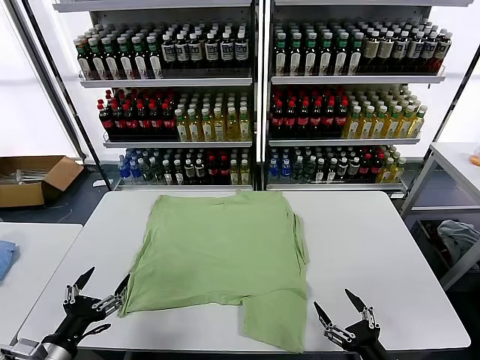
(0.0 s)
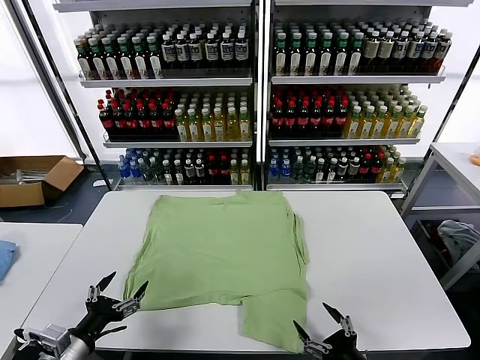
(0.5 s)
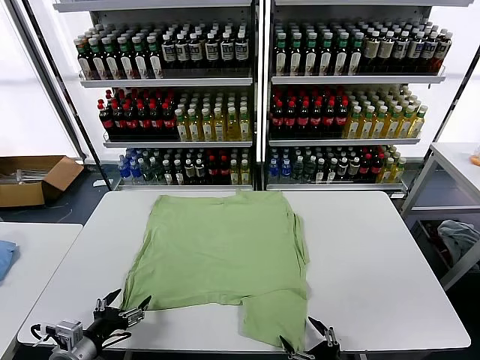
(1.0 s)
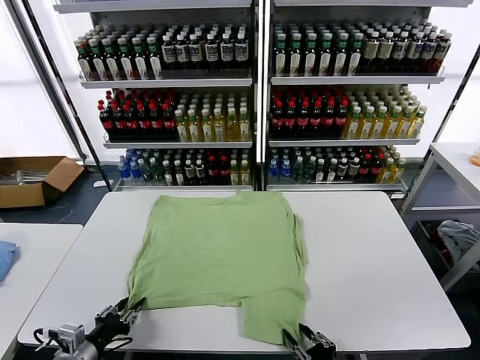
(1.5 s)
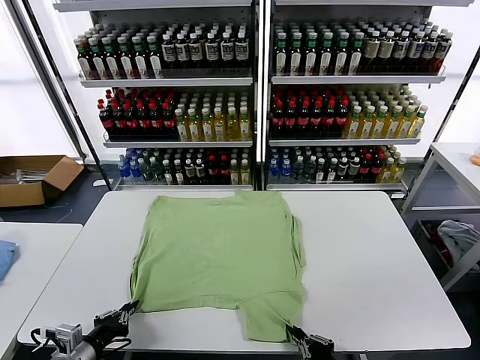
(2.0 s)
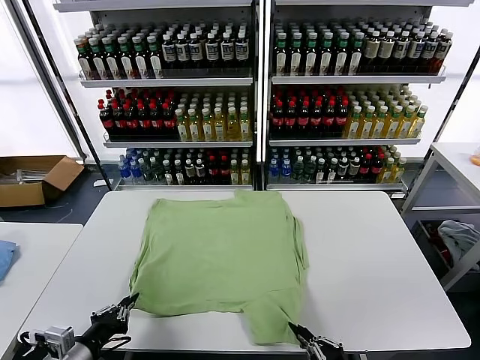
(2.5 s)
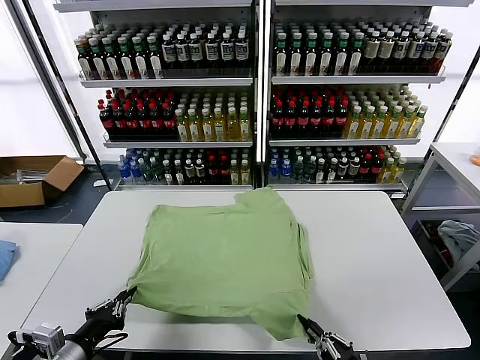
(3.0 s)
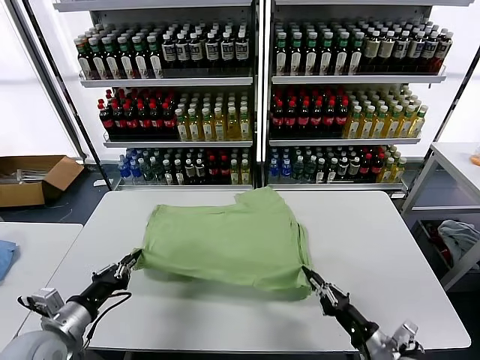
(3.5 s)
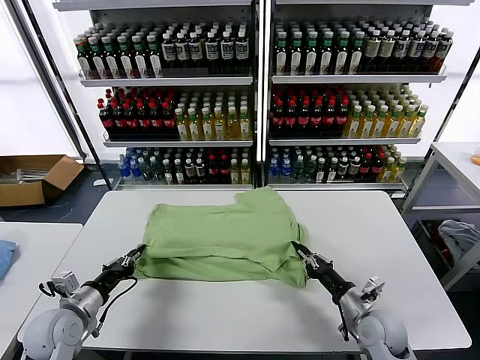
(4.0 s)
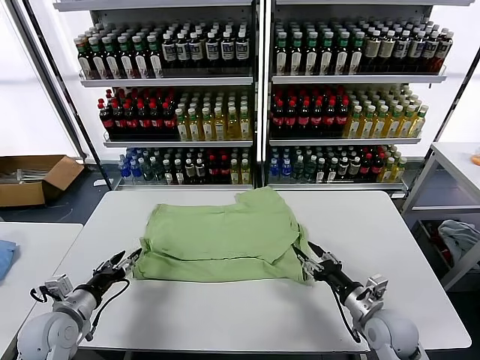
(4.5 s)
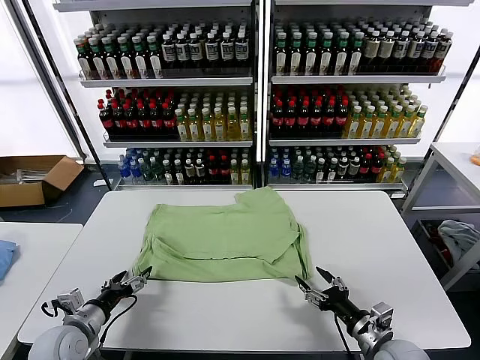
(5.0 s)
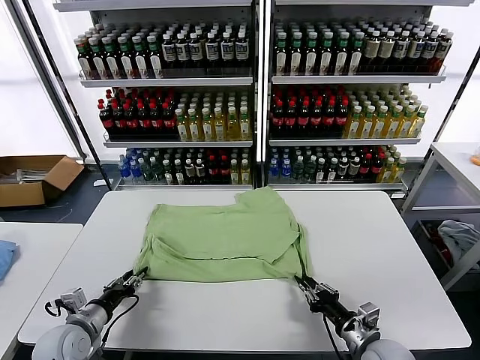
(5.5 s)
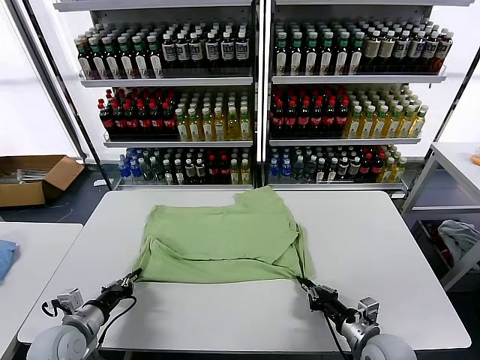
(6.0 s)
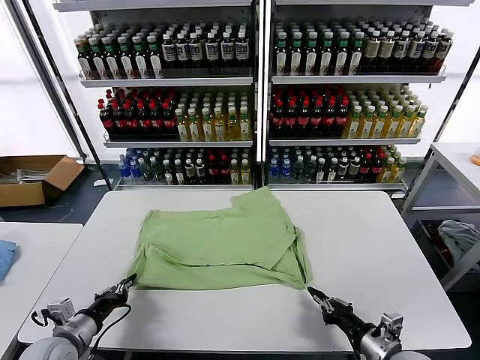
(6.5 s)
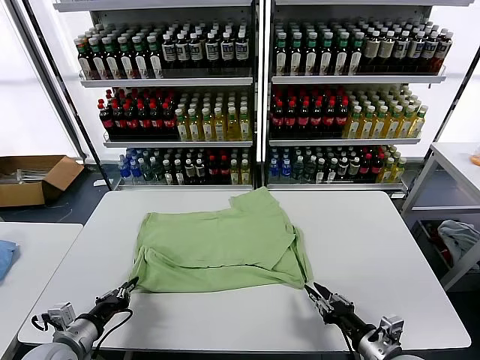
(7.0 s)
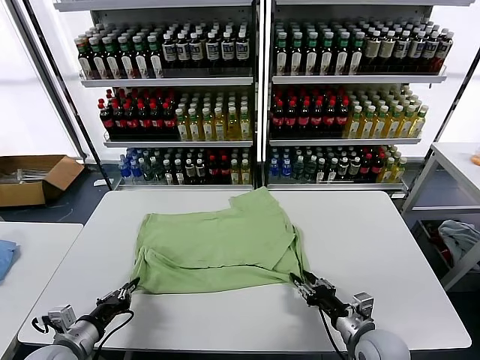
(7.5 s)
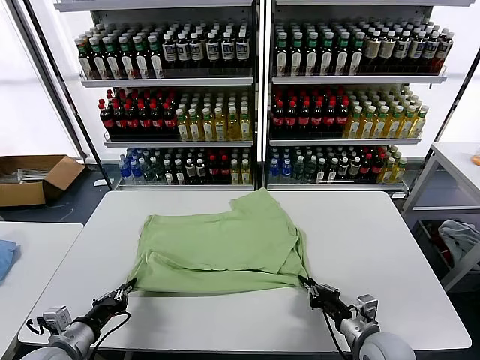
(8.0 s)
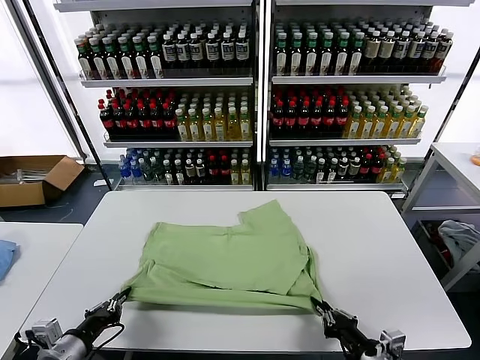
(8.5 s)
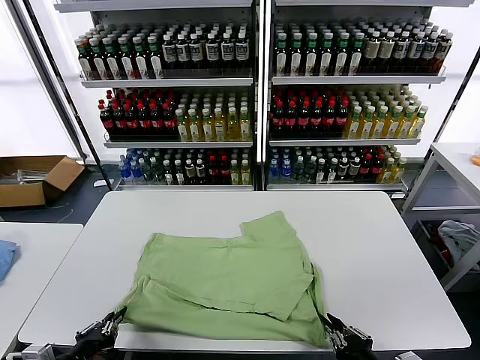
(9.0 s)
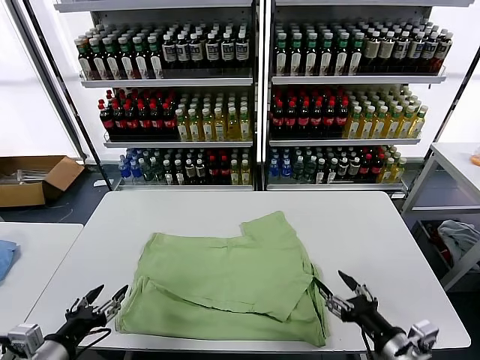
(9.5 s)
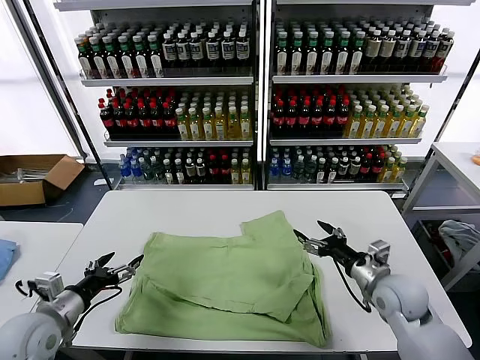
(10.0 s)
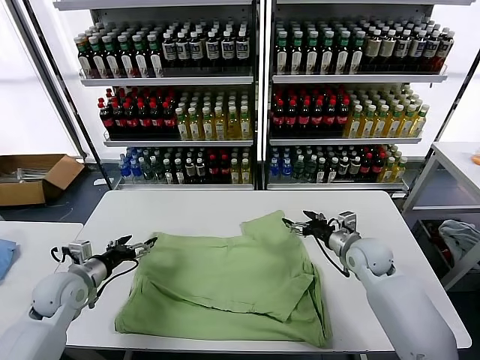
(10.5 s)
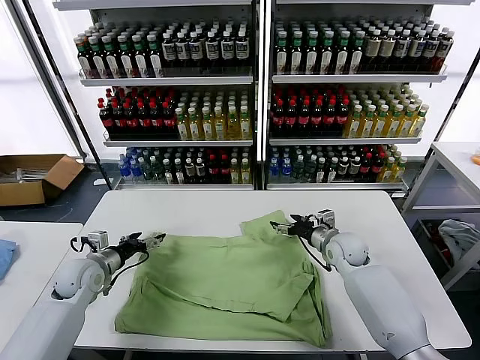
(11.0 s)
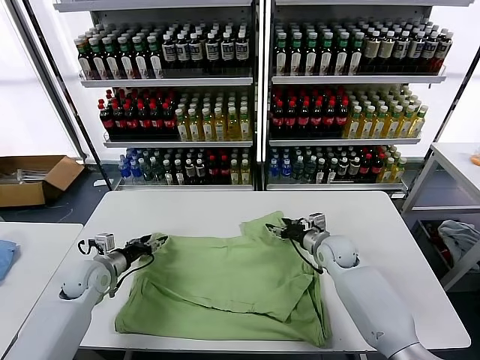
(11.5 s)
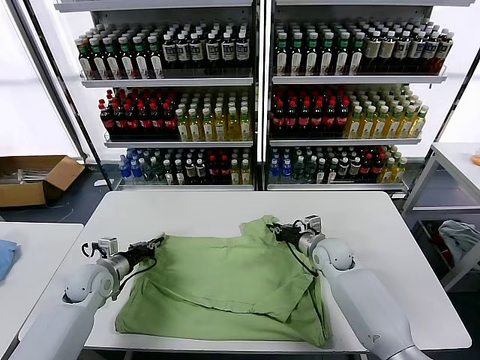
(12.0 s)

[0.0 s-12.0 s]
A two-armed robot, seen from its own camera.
Task of the whole recording: fold and organize the clothes.
Step, 0.0 to 1.5 s: use both grippers simultaneously to clamp the lower edge of the clothing fabric.
Step, 2.0 to 4.0 s: use both grippers to drag the lower edge of the fabric forward and fold it over the upper edge.
Step, 5.0 to 9.0 s: Drag the clothes downward with both gripper.
2.0 to 4.0 s: The left gripper moves forward, roughly 10 cm; the right gripper shifts roughly 20 cm forward.
4.0 to 6.0 s: The right gripper is displaced backward by about 5 cm, and opens, then closes once more. Meanwhile the left gripper opens and closes again.
6.0 to 8.0 s: The left gripper ends up some 5 cm from where it was; the right gripper opens, then closes again.
8.0 to 10.0 s: The right gripper travels forward and upward by some 15 cm, and opens its fingers, while the left gripper moves upward, some 5 cm, goes backward and returns, roughly 10 cm each way, and opens.
10.0 to 12.0 s: The left gripper is displaced forward and downward by roughly 20 cm, and closes up, while the right gripper heads forward, to the left and downward, covering approximately 15 cm, and closes.

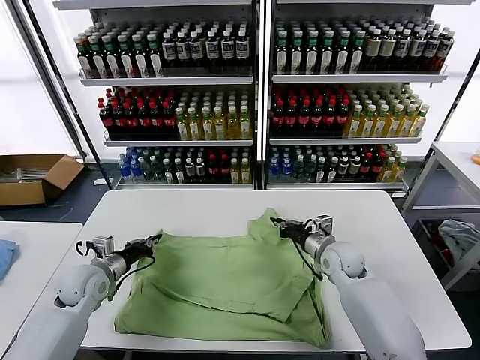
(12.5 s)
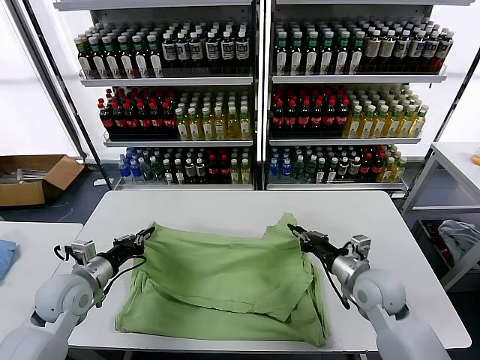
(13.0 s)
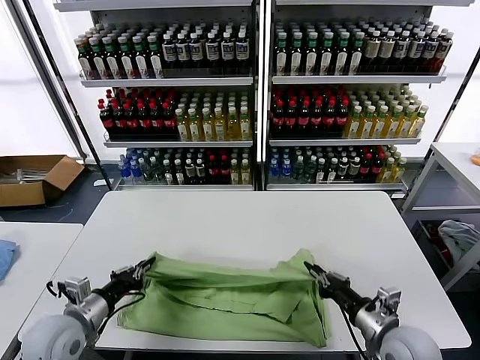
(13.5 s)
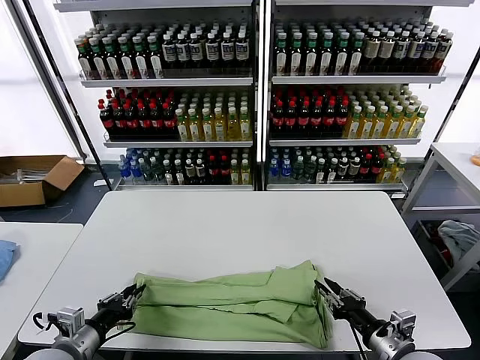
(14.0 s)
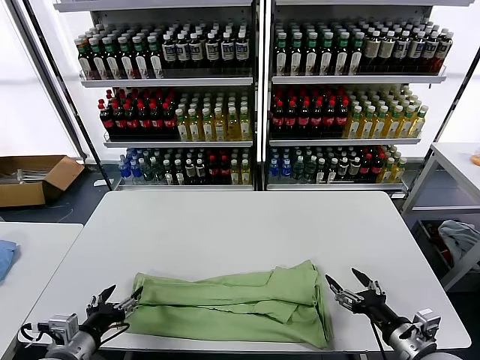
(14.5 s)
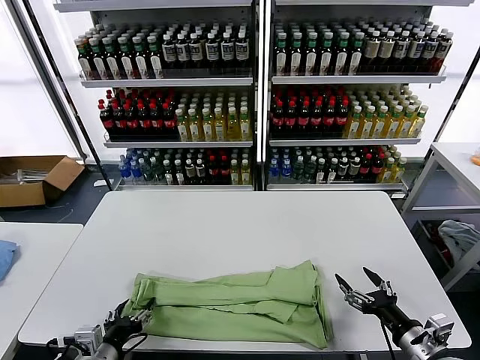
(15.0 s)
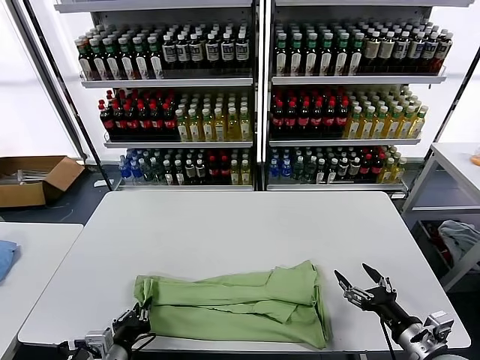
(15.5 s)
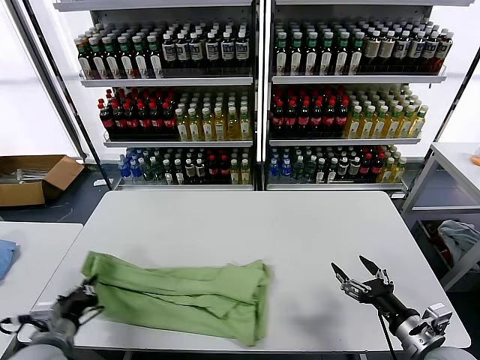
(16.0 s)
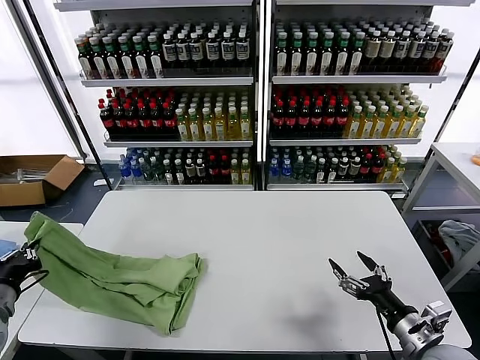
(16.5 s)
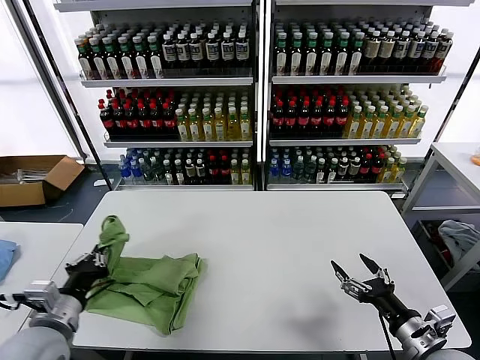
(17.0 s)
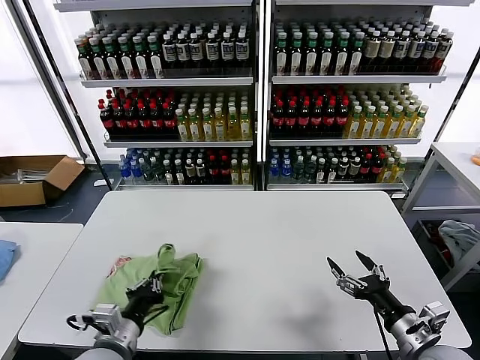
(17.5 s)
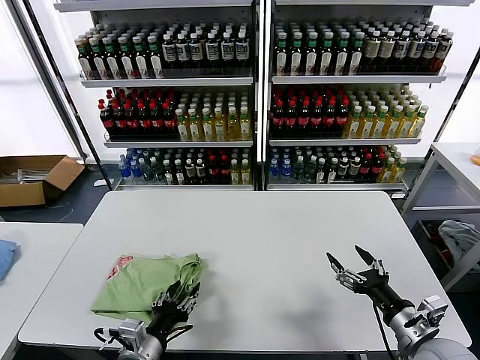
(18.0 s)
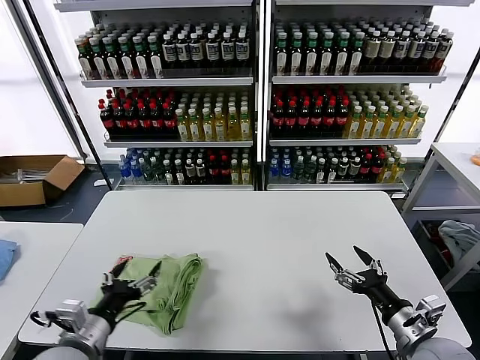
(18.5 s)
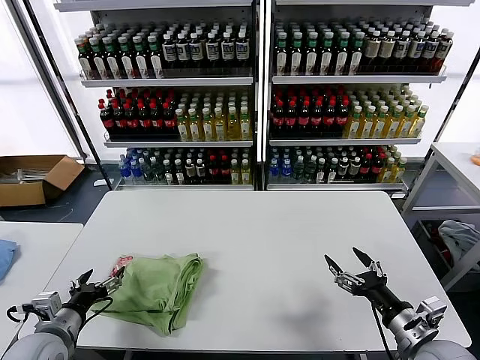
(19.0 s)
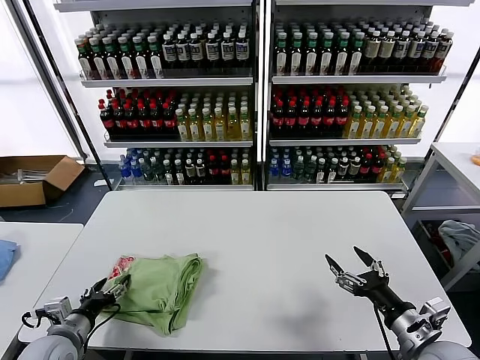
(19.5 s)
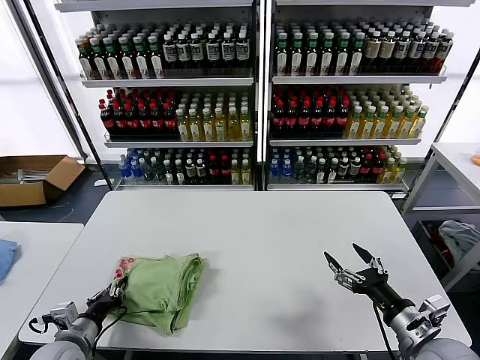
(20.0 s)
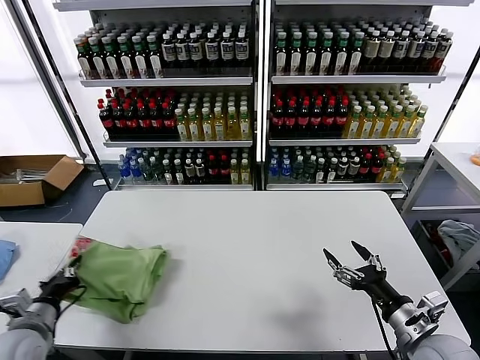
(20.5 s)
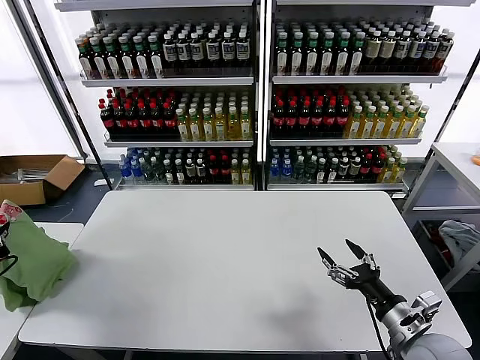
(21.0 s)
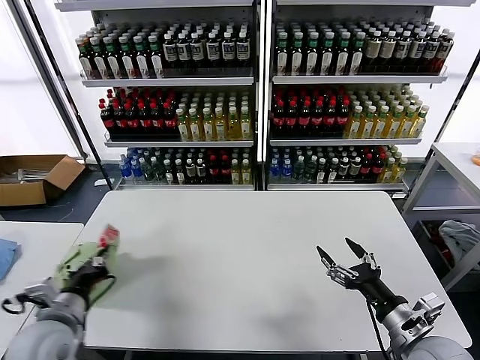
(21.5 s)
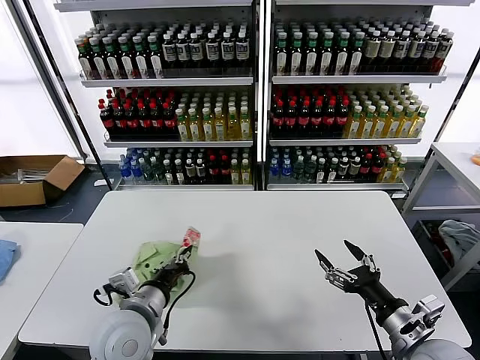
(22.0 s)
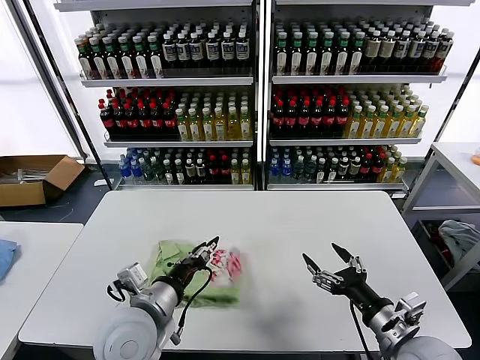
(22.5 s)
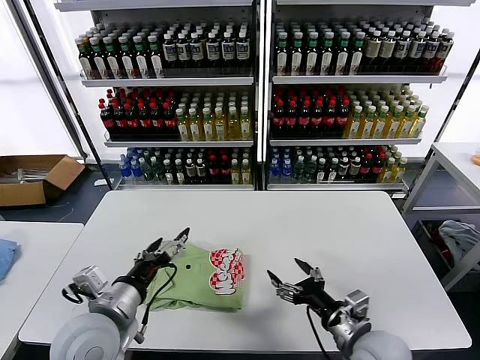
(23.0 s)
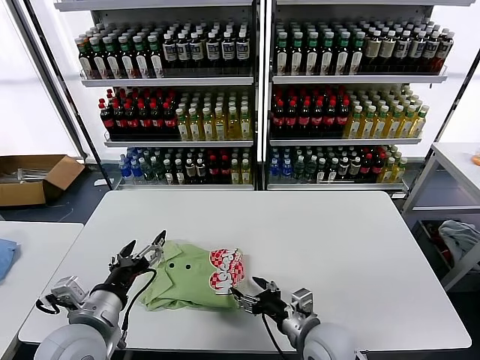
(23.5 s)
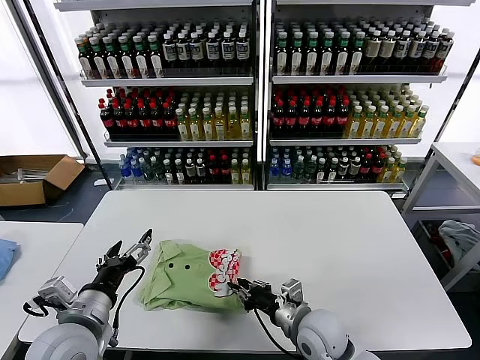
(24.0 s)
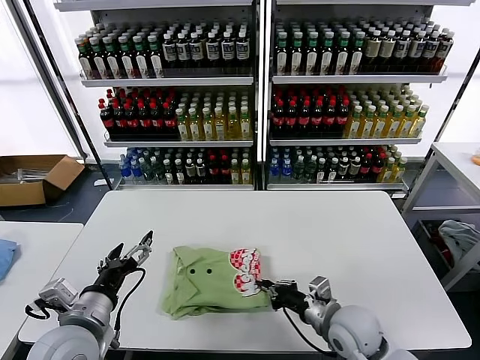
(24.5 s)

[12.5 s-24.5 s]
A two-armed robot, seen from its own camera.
Task of the whole recording: fold and organize the clothes.
Step, 12.5 to 14.0 s: use both grippers to drag the upper edge of the fabric backward and fold it over the lower edge.
Step, 14.5 to 15.5 s: use the left gripper to clamp the left edge of the fabric.
Step, 16.0 to 18.0 s: use the left gripper to drag the left edge of the fabric to the left and folds it over the right edge.
Step, 18.5 to 22.5 s: Flip the folded clothes over with left gripper.
12.5 to 14.5 s: The right gripper heads backward and to the right, covering some 30 cm, and opens; the left gripper moves backward, approximately 20 cm, and opens its fingers.
14.5 to 16.5 s: The left gripper moves to the left, upward and forward, roughly 15 cm, and closes its fingers.
16.5 to 18.5 s: The left gripper travels to the right by approximately 20 cm, and opens.
18.5 to 20.5 s: The left gripper moves to the left, about 10 cm, and closes up.
20.5 to 22.5 s: The left gripper heads to the right, covering roughly 20 cm.
22.5 to 24.5 s: The right gripper moves to the left, forward and downward, approximately 15 cm, and closes up. Meanwhile the left gripper is displaced to the left by approximately 10 cm, and opens.

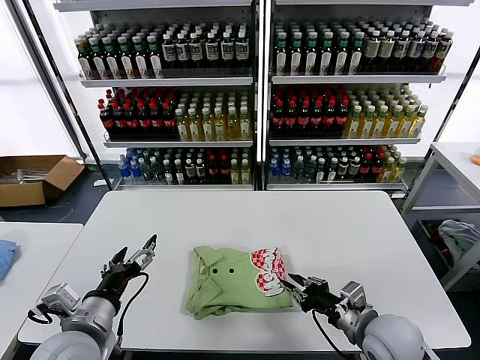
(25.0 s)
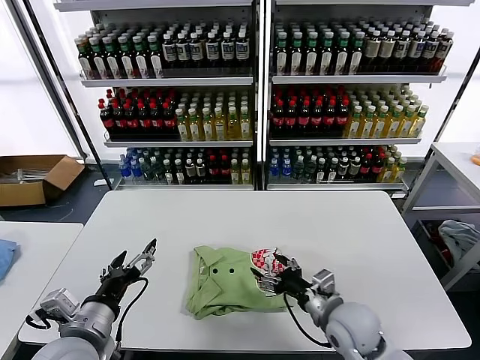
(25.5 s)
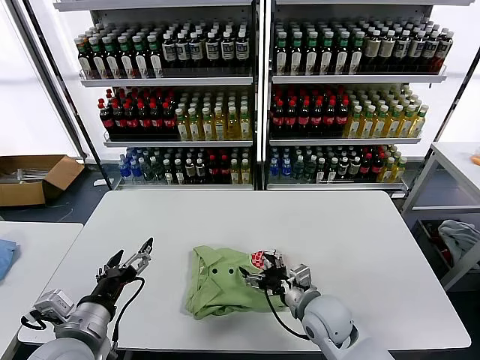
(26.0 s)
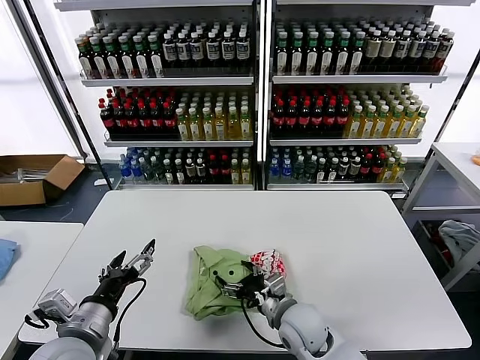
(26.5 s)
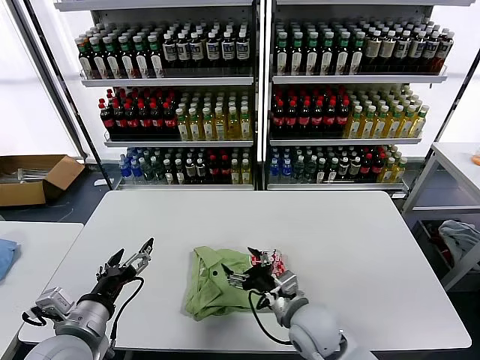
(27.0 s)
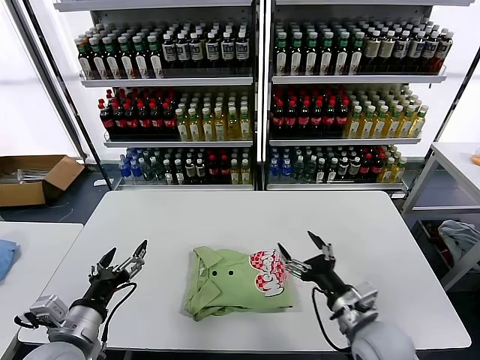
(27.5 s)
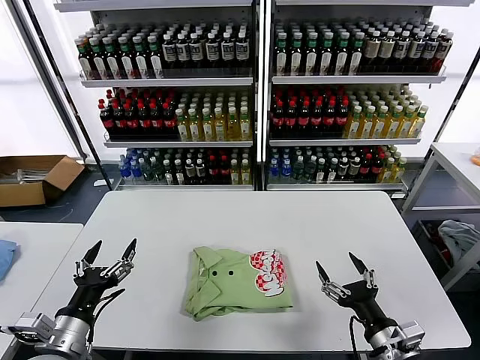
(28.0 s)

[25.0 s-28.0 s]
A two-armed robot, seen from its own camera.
Task of the whole recording: fold and organize the clothes.
Step, 25.0 to 27.0 s: Drag the clothes to the center of the table.
25.0 to 26.5 s: The right gripper moves to the left, roughly 15 cm, and opens its fingers.
26.5 to 28.0 s: The right gripper is displaced to the right and backward by some 20 cm, while the left gripper changes place by some 5 cm.
